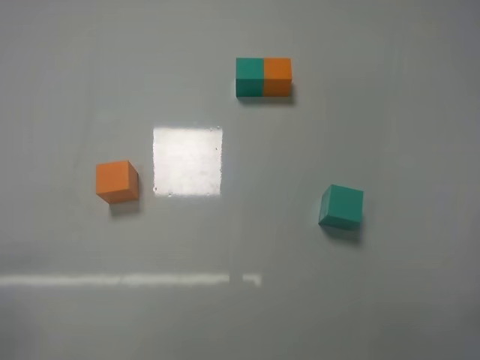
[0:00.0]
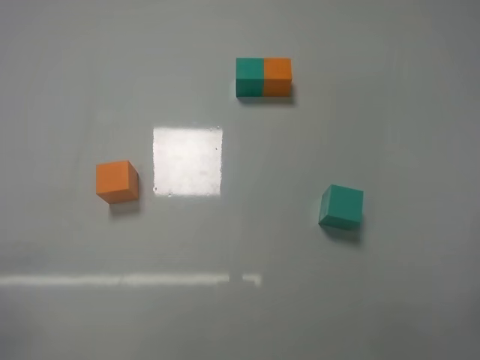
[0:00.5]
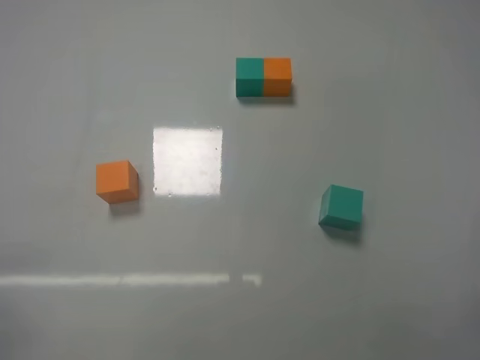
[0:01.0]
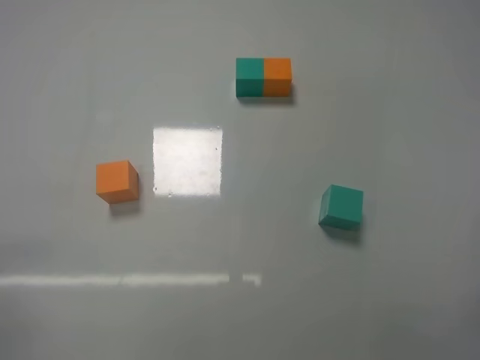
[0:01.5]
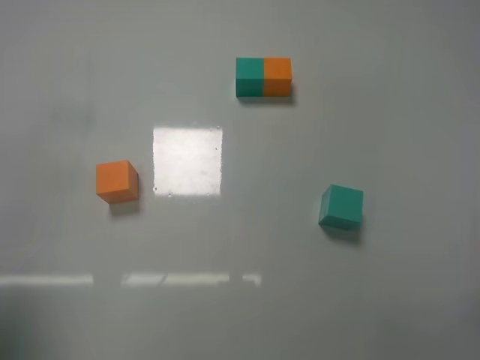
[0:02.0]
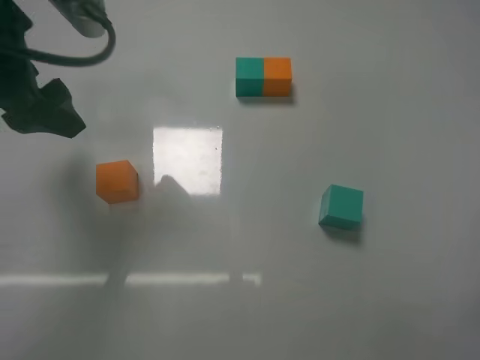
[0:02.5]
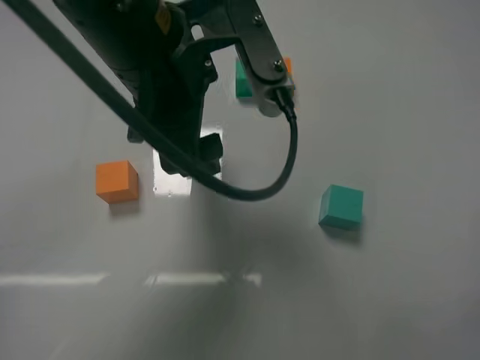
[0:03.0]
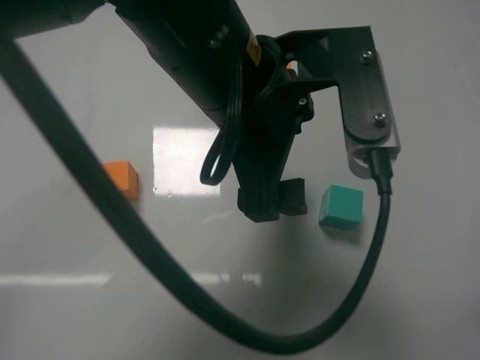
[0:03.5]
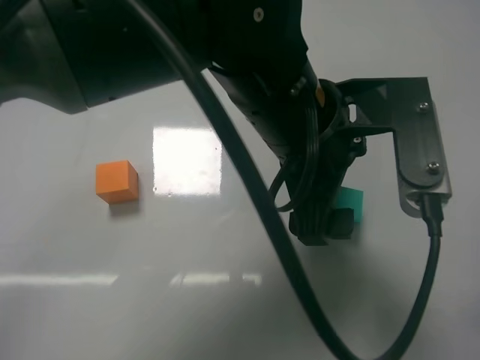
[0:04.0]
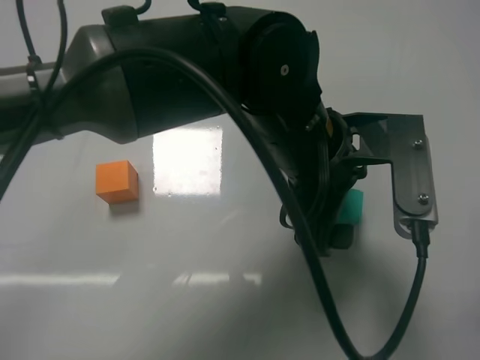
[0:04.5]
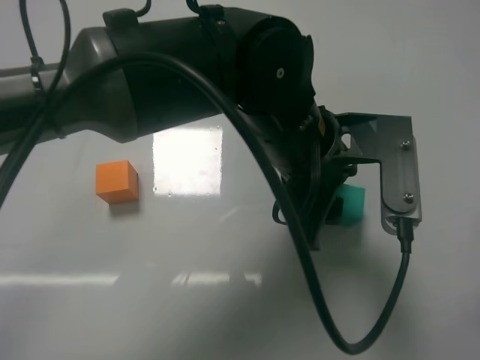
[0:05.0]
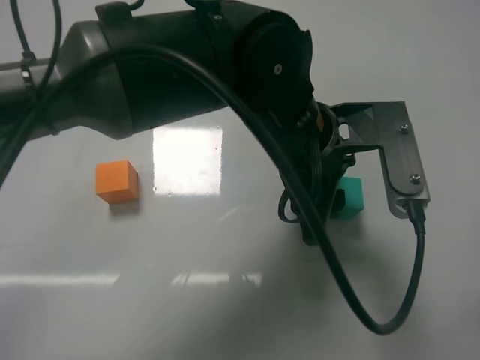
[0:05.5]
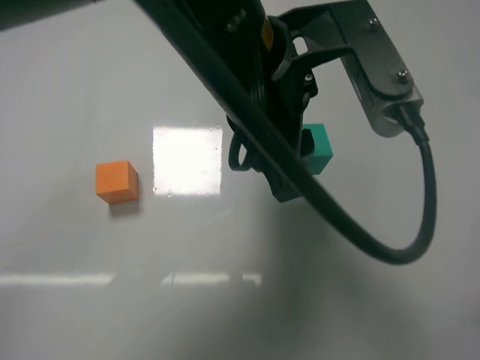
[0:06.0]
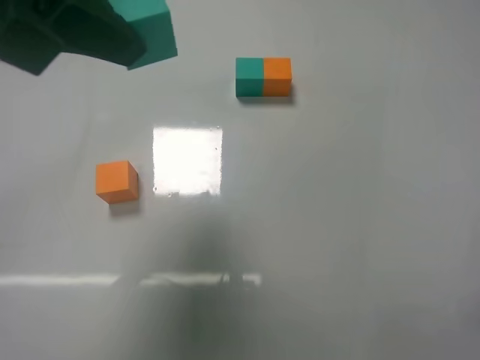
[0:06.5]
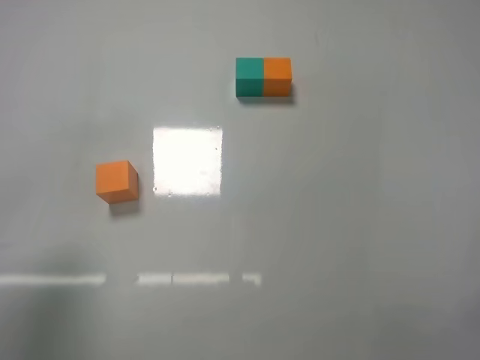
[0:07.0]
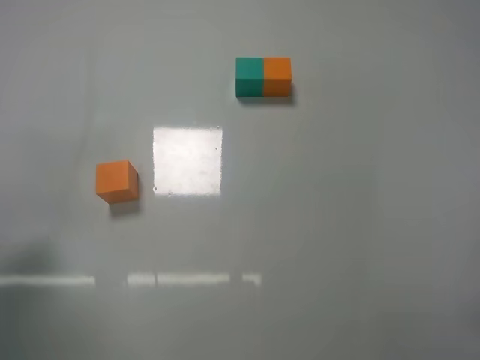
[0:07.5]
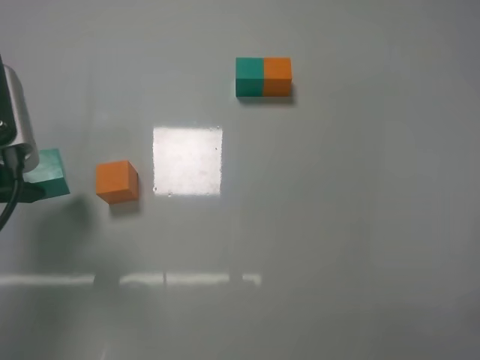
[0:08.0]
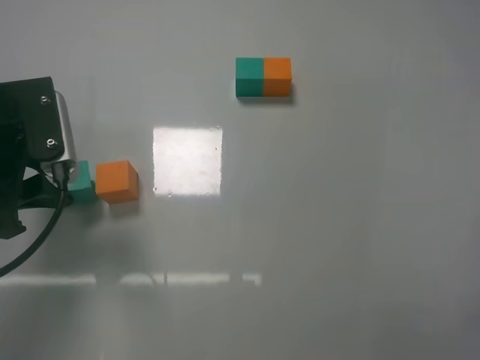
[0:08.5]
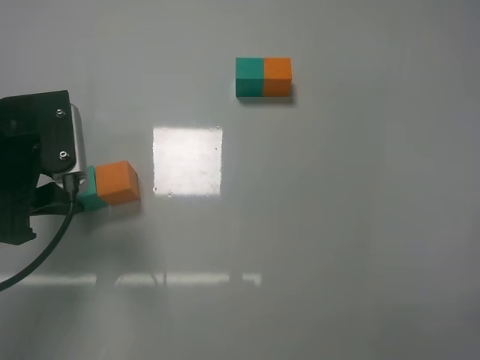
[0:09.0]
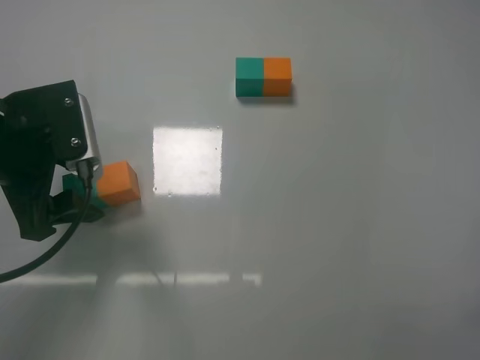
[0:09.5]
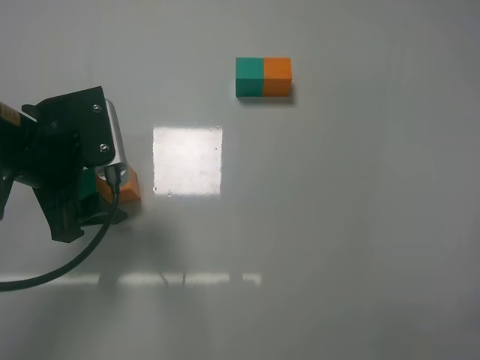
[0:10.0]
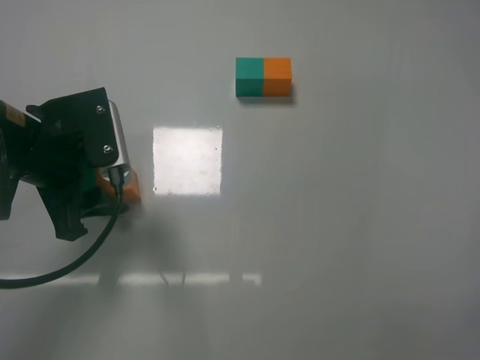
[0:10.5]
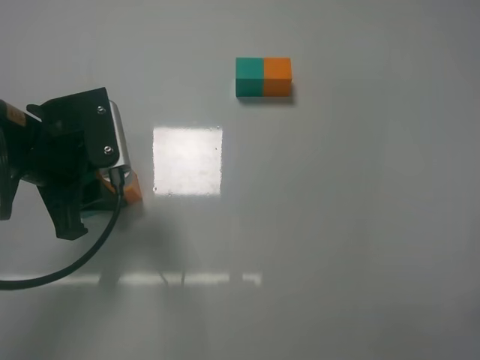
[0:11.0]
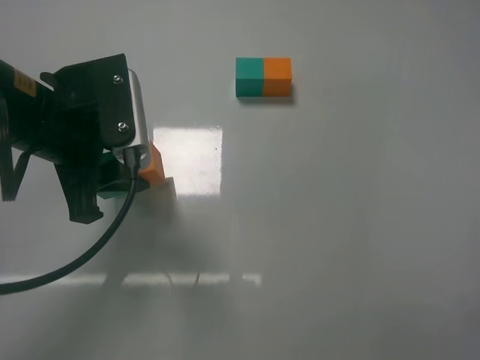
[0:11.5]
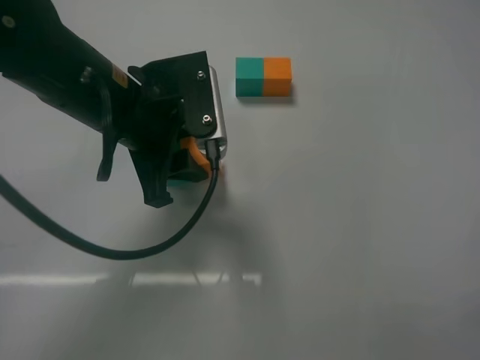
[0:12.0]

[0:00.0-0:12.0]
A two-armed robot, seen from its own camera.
Task of the whole recording: According to the building block template in front, assemble the scattered blocks together.
Step, 0:00.0 to 0:05.0: Grasp the green block with left gripper.
Step, 0:05.5 to 0:09.0: Put the green cube on the left of the orange cube with the left gripper.
0:00.0 to 0:02.0: The left gripper shifts about 20 cm upward and forward.
0:02.0 to 0:04.0: The right gripper closes its fingers. Meanwhile the left gripper moves to the right, roughly 35 cm.
0:04.0 to 0:06.0: The left gripper heads upward, covering approximately 5 cm, and closes its fingers.
0:06.0 to 0:08.0: The left gripper goes about 25 cm to the left.
0:08.0 to 0:10.0: The left gripper moves to the right, roughly 5 cm, and opens up.
0:10.0 to 0:12.0: The left gripper shifts roughly 10 cm to the right, and closes up.

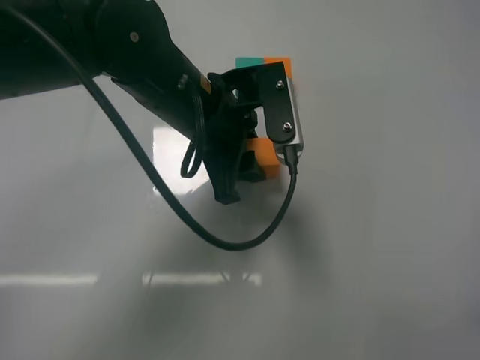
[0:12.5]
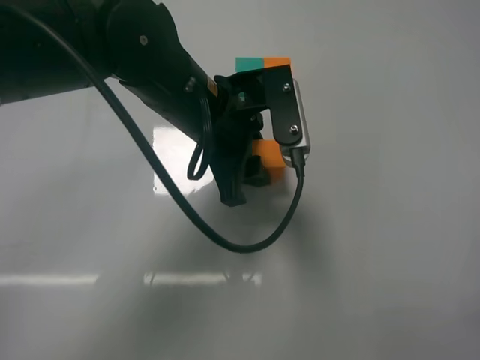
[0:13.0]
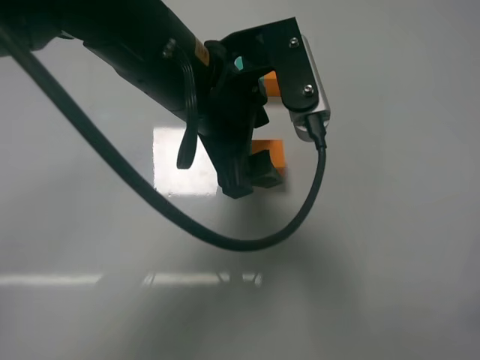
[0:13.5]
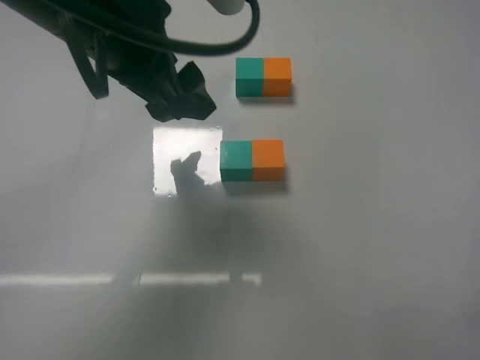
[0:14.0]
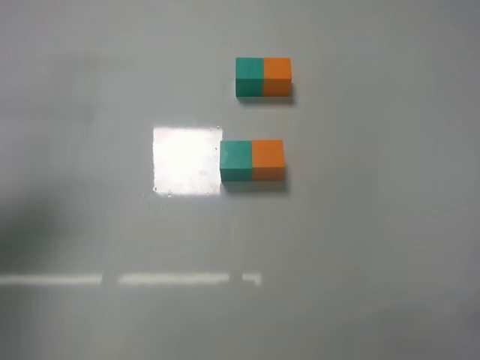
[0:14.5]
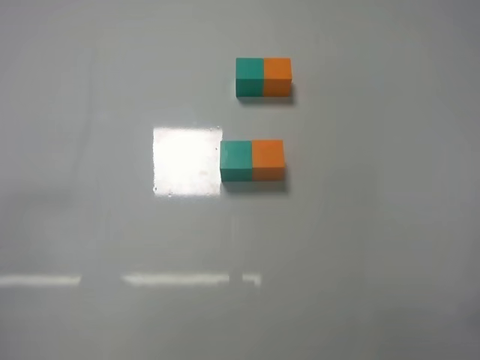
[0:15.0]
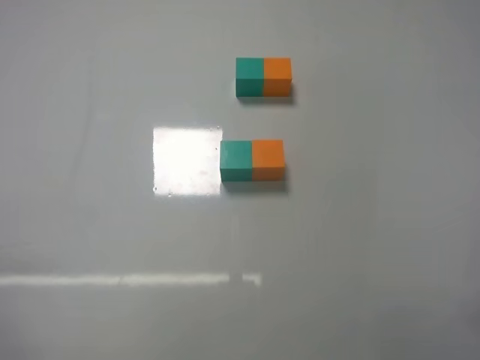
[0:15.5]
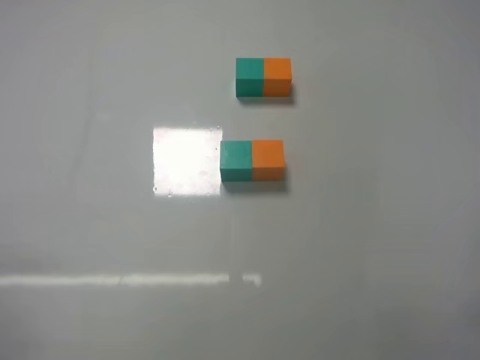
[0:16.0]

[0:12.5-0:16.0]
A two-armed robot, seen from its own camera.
Task of the whole recording: According to the building block template in front, assemble the scattered blocks together.
0:12.5 to 0:14.5: The left gripper moves to the left and upward, roughly 30 cm, and opens.
0:14.5 to 0:16.0: The left gripper goes approximately 30 cm downward and backward.

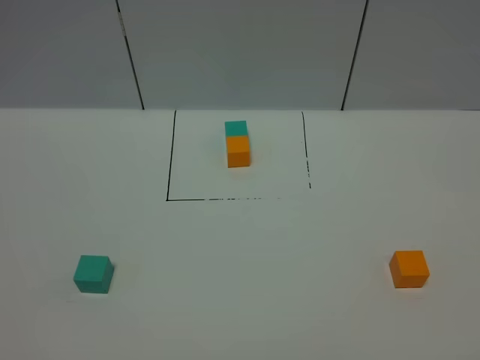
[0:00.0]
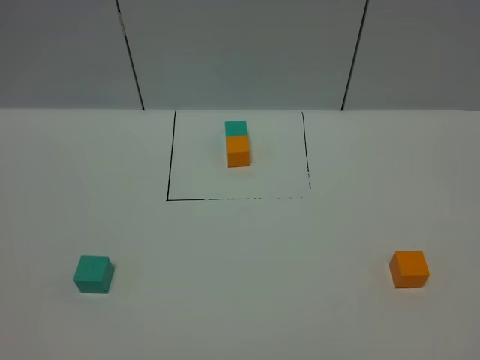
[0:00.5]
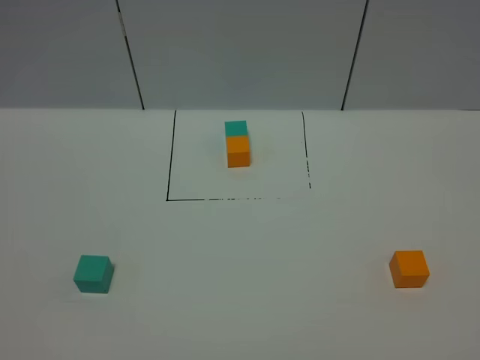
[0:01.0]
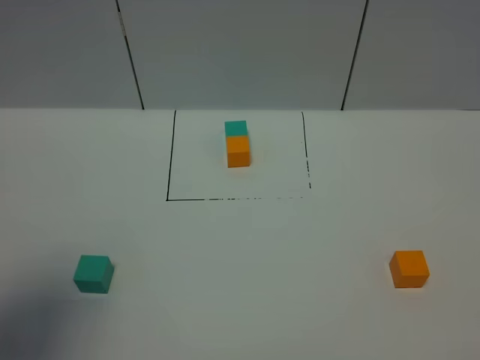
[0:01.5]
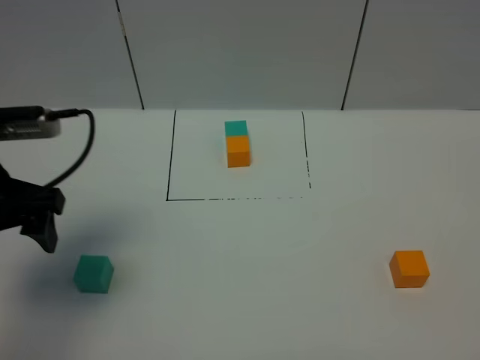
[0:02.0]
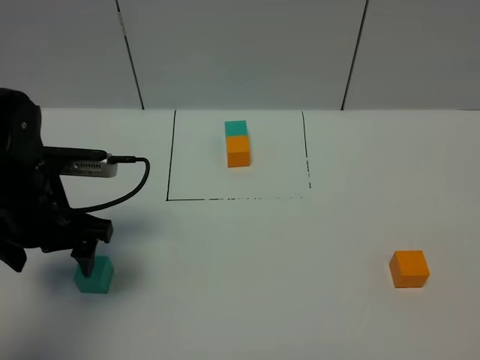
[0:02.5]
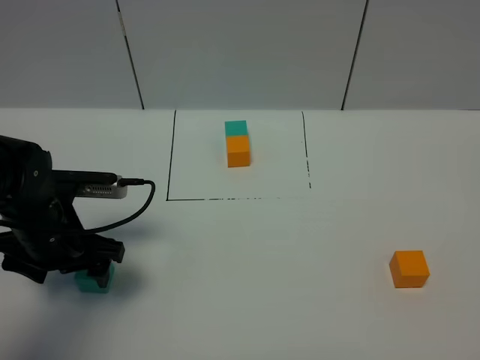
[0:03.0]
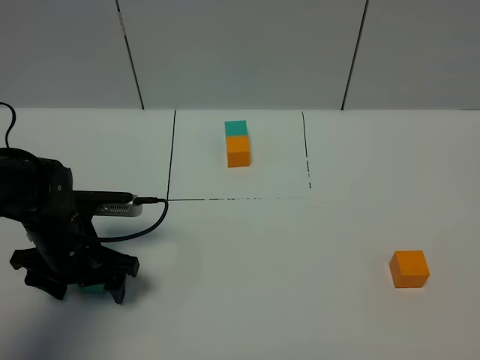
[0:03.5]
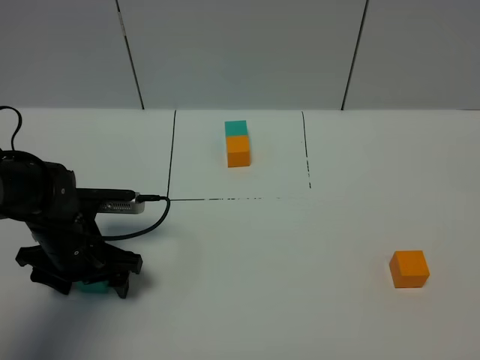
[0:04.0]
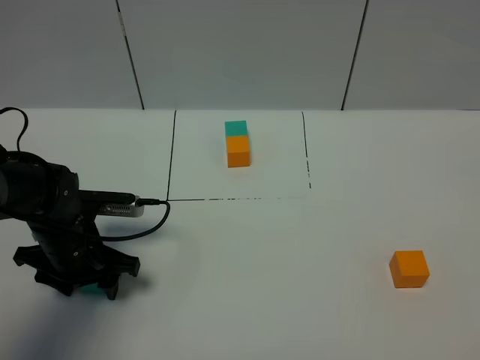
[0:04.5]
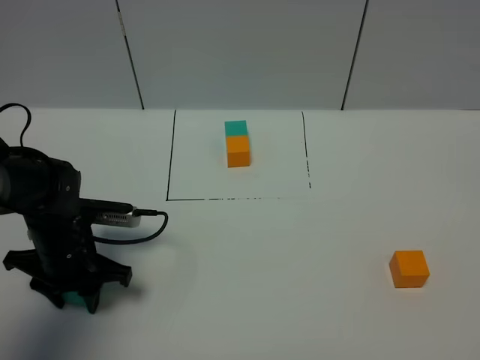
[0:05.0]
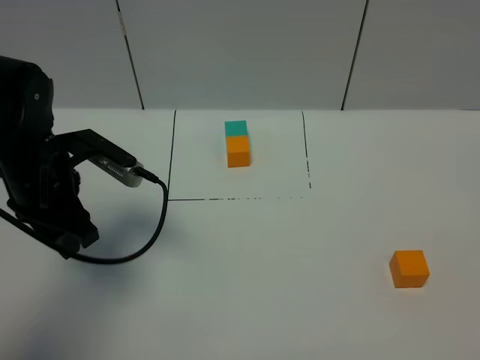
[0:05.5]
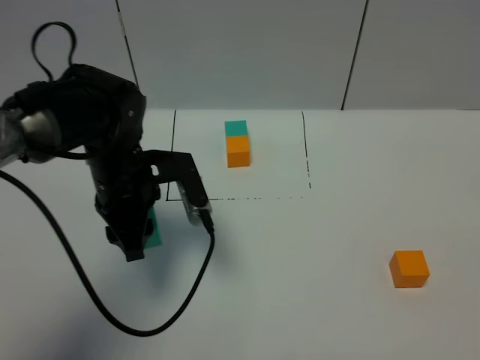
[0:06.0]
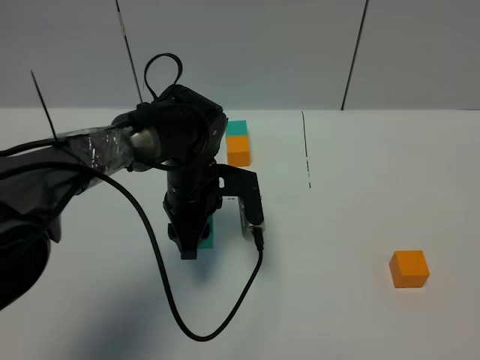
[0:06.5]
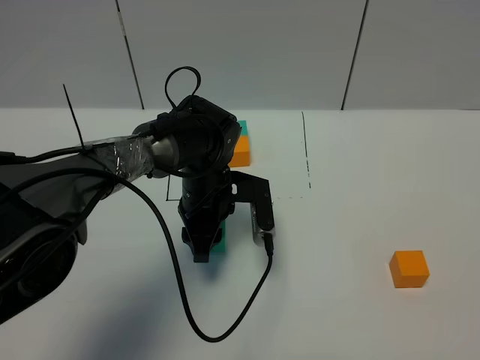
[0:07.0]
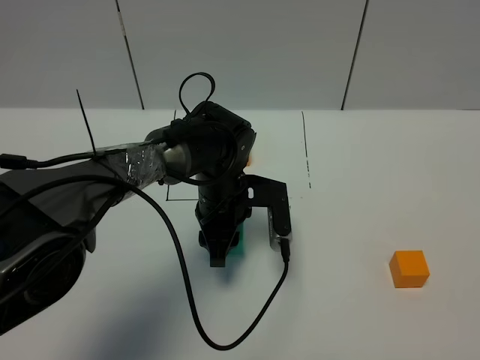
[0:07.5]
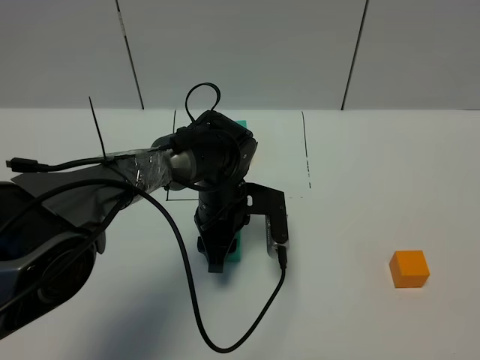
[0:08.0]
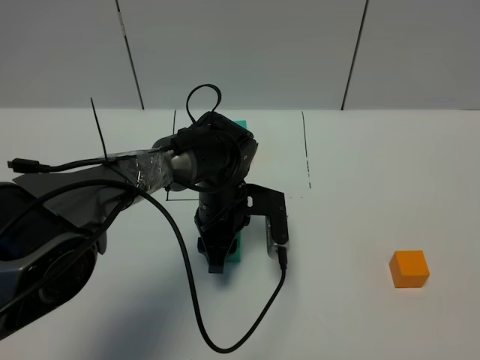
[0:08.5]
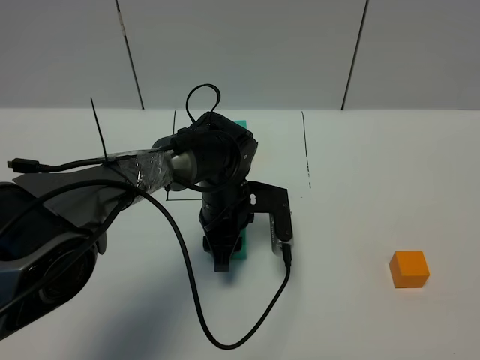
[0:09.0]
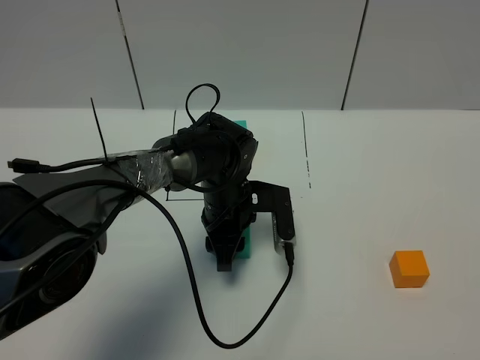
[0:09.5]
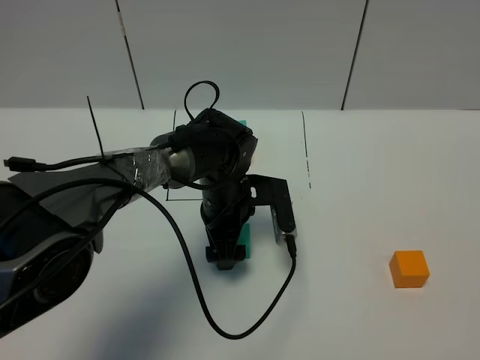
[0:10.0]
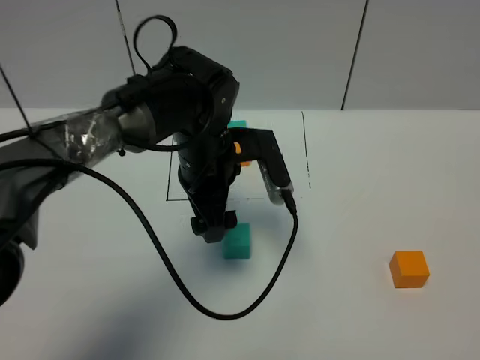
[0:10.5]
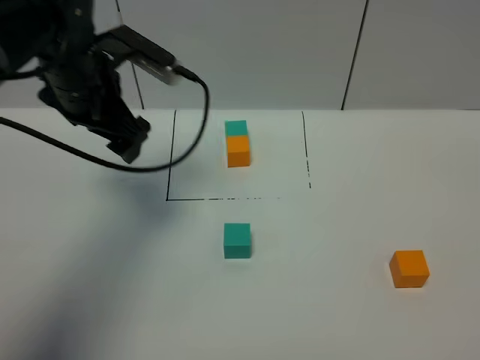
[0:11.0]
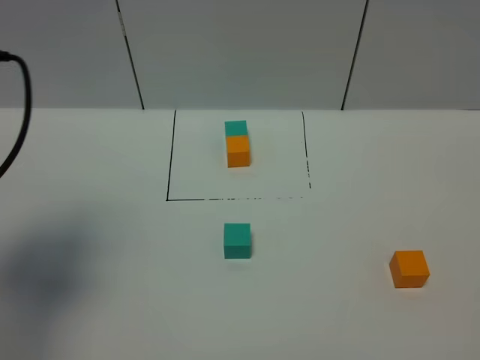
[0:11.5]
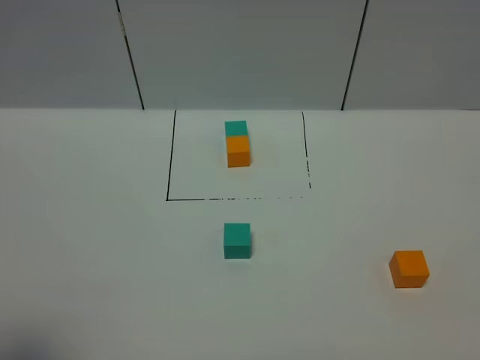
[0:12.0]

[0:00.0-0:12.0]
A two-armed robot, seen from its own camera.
Task of the whole recording: According to the building block template in front, assemble the scattered blocks together.
Step, 0:02.0 to 0:10.0: Put the green cube in the center of the table.
0:00.0 to 0:02.0: The left gripper goes about 30 cm forward.
0:02.0 to 0:04.0: The left gripper heads downward, covering approximately 15 cm.
0:04.0 to 0:06.0: The left gripper moves to the right and upward, about 10 cm, and closes up.
0:06.0 to 0:08.0: The left gripper heads to the right and downward, covering about 15 cm.
0:08.0 to 0:10.0: The left gripper opens its fingers.
0:10.0 to 0:12.0: The left gripper is displaced backward, to the left and upward by approximately 50 cm.
